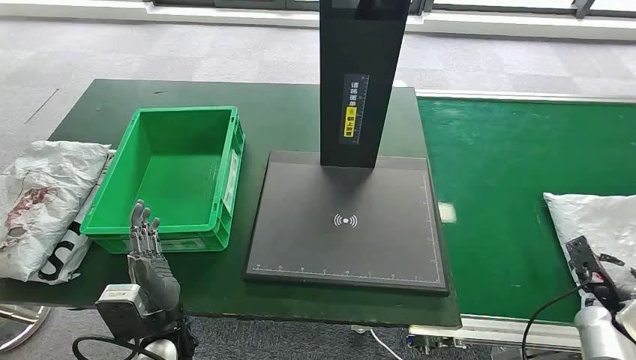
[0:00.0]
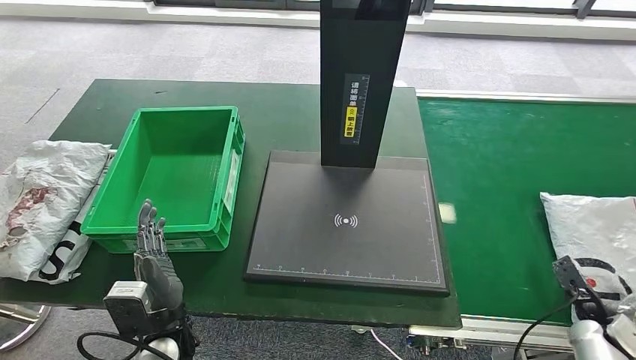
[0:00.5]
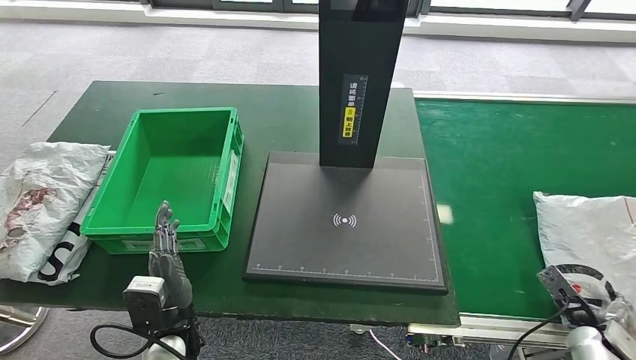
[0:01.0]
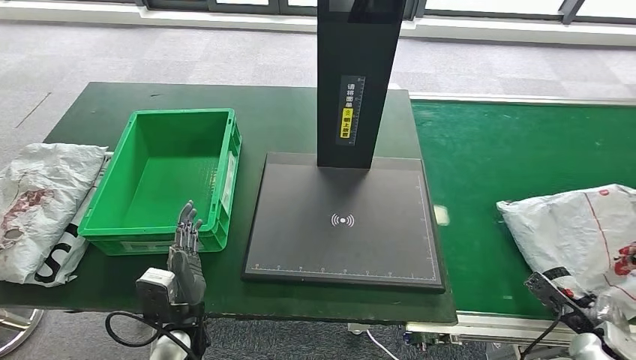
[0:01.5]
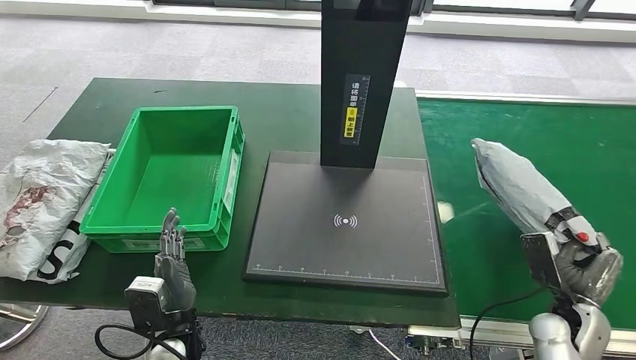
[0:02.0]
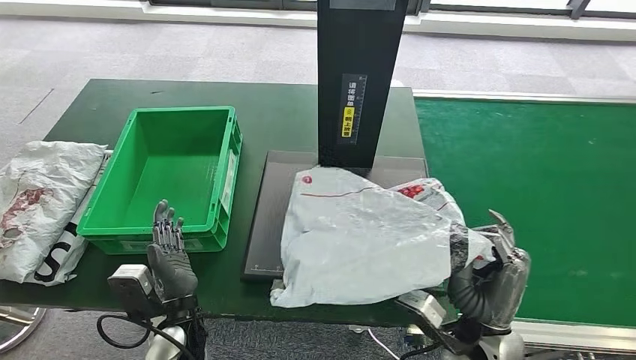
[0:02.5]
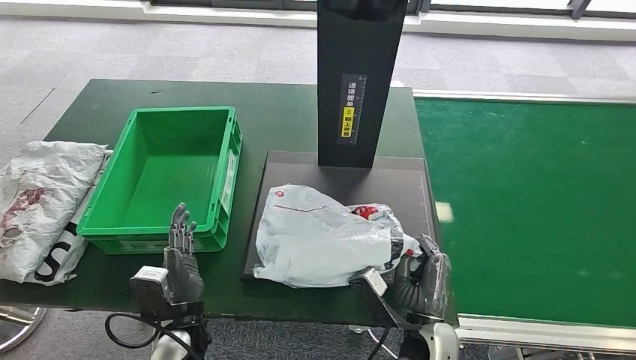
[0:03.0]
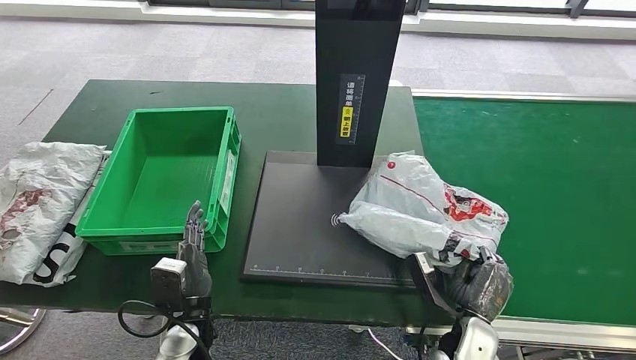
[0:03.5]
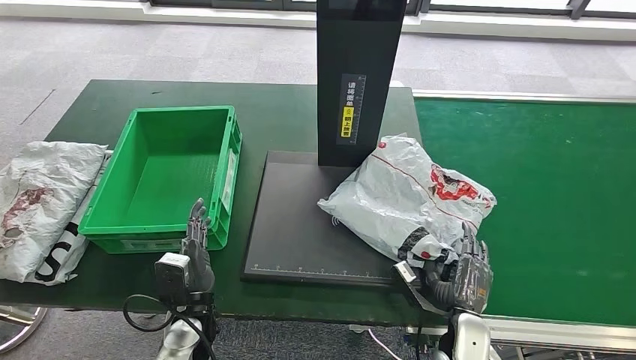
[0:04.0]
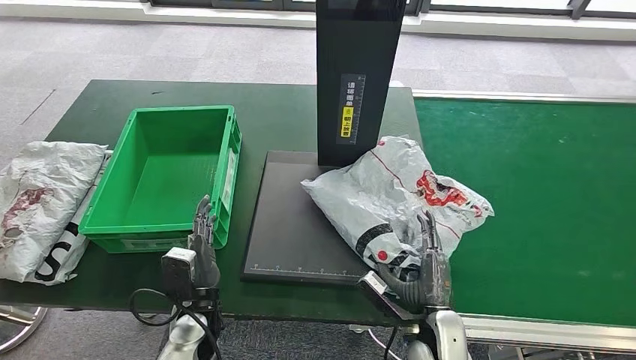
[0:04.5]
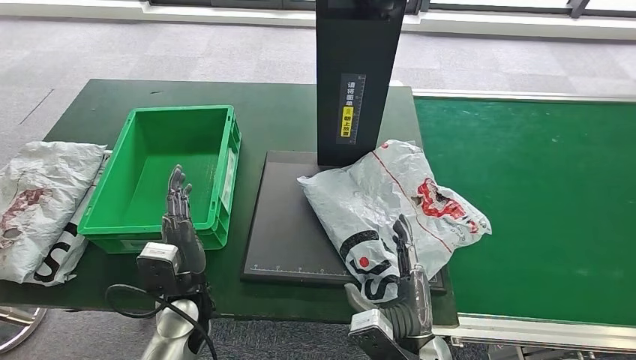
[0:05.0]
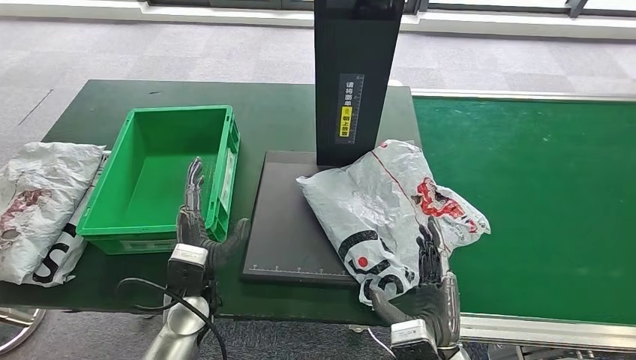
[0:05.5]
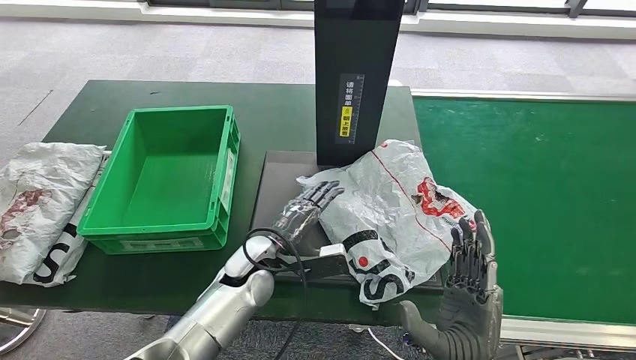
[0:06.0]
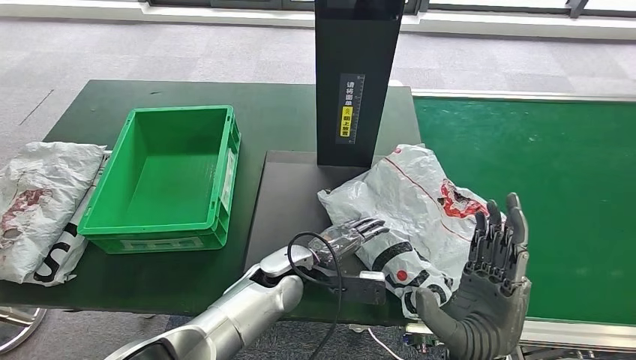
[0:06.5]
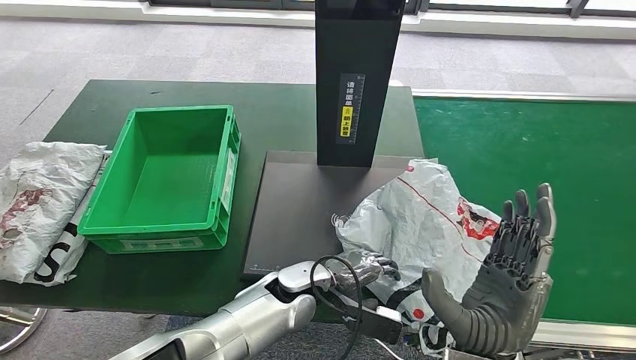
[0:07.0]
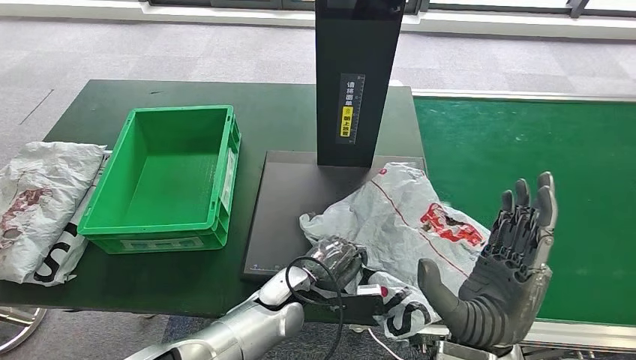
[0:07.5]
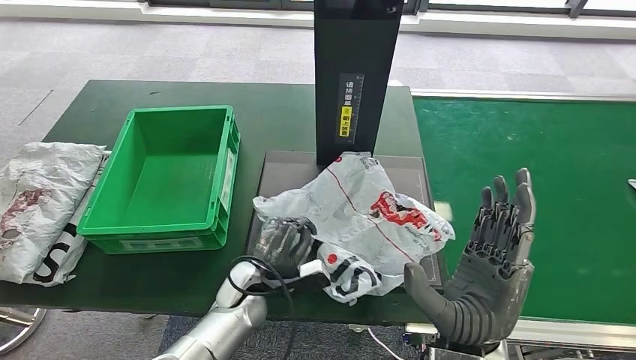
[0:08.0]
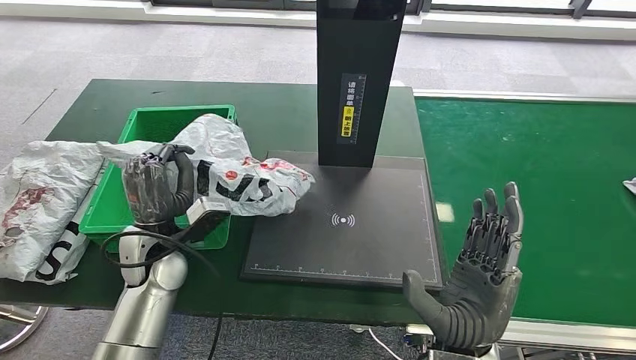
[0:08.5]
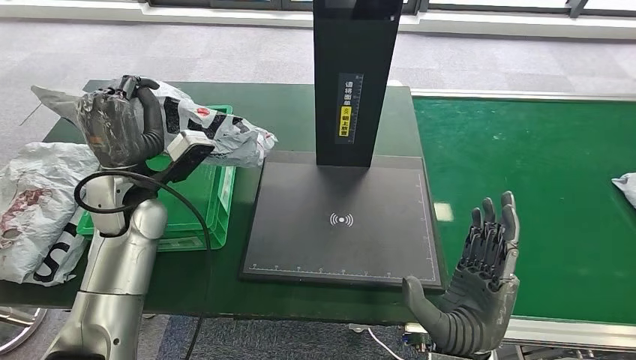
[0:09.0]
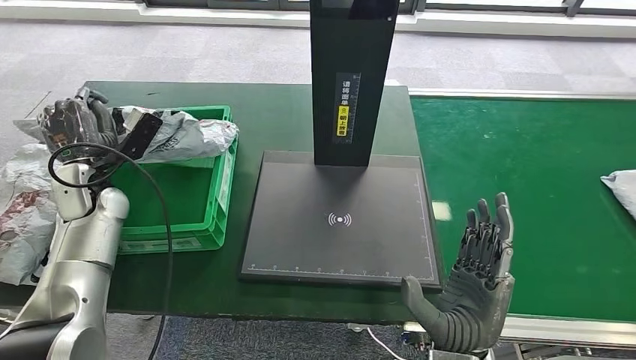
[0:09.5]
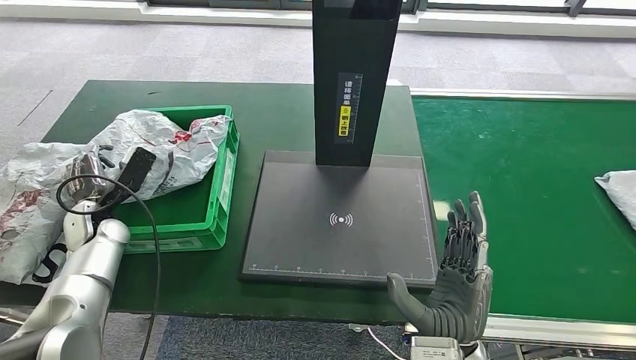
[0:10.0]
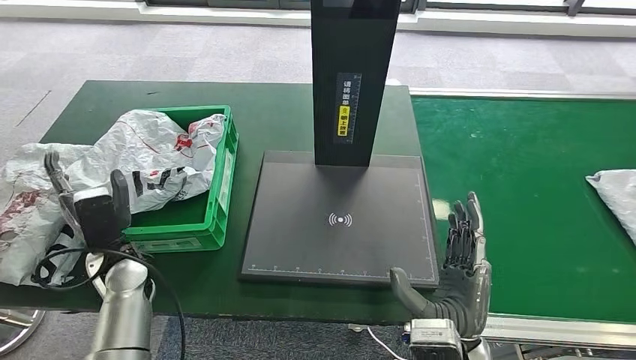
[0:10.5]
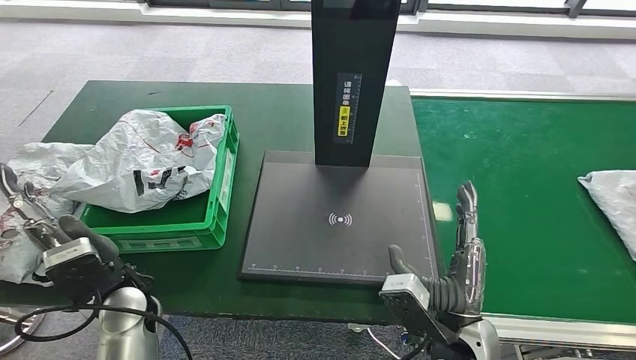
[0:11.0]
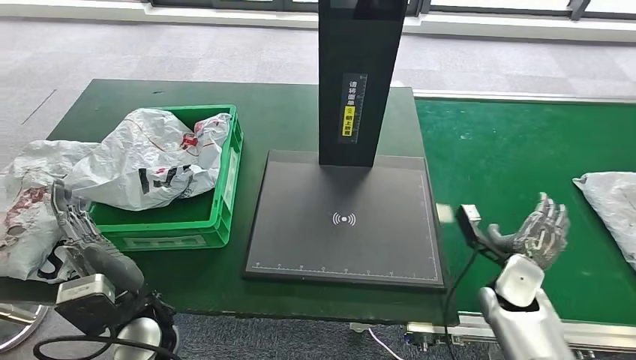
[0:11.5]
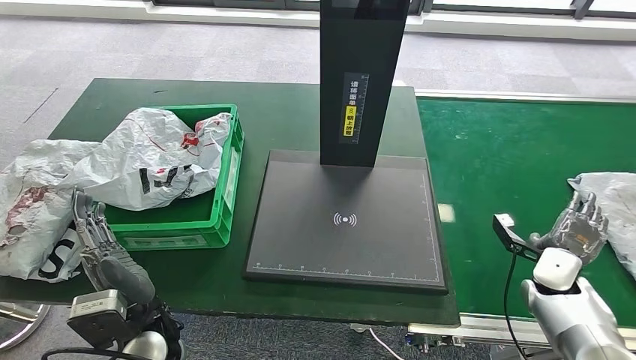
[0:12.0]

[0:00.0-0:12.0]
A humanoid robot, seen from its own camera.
Step, 0:00.0 to 0:01.5: Take the parcel off the conveyor belt.
Step, 0:02.0 to 0:05.5: Place the parcel onto the inbound machine.
Step, 0:06.0 to 0:08.5: Pick up the parcel from the inbound machine.
0:04.0 to 0:06.0: The left hand moves to the right, forward and upward, some 15 cm; the right hand shifts about 15 cm upward, to the left and backward.
0:06.0 to 0:08.0: The right hand shifts some 5 cm upward; the left hand travels downward by about 5 cm, and moves approximately 10 cm to the right and comes back.

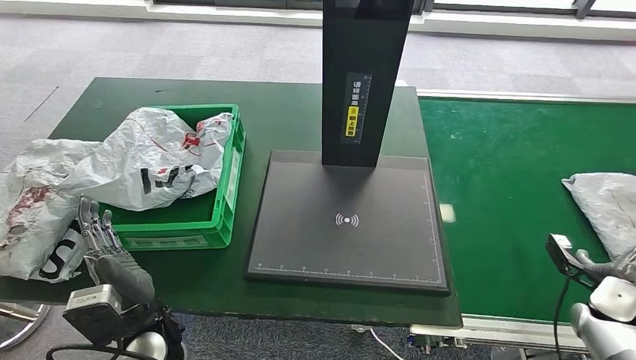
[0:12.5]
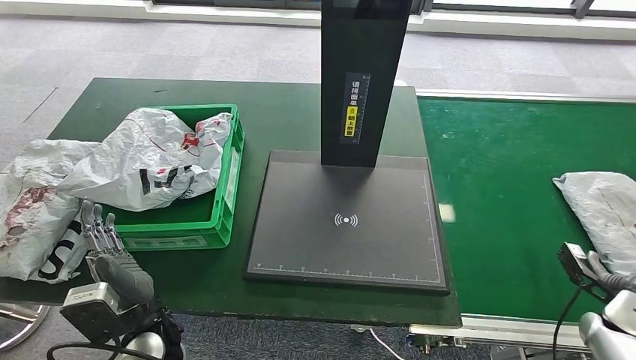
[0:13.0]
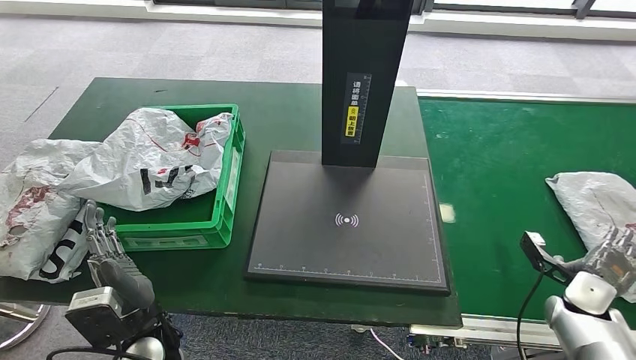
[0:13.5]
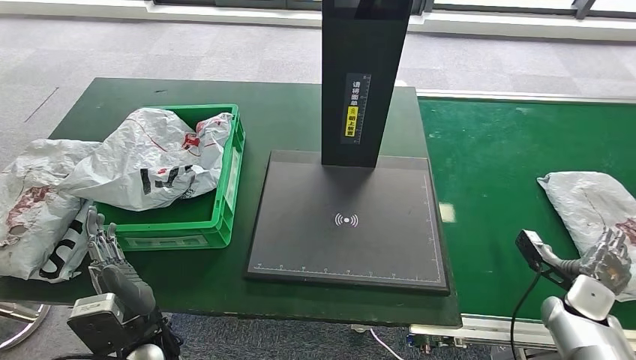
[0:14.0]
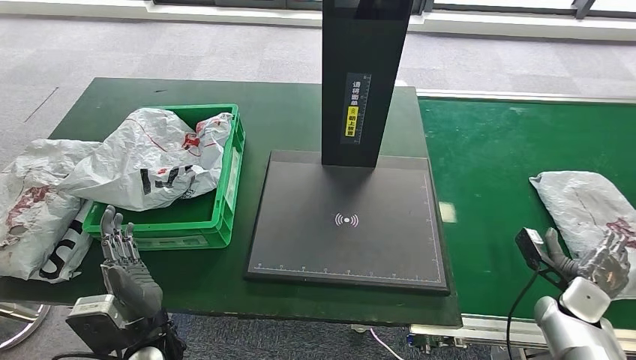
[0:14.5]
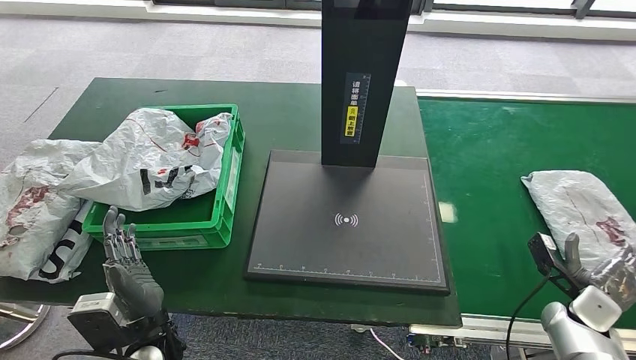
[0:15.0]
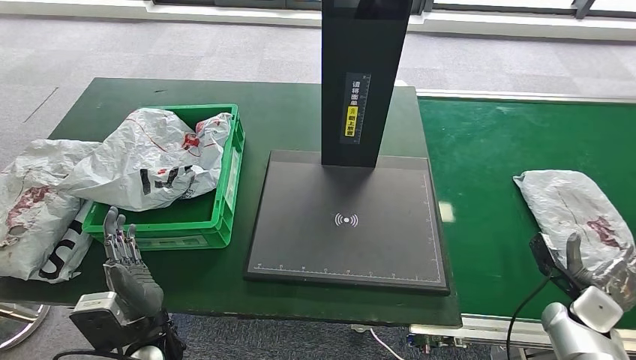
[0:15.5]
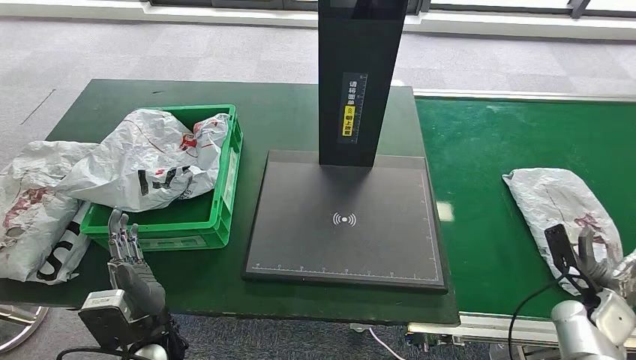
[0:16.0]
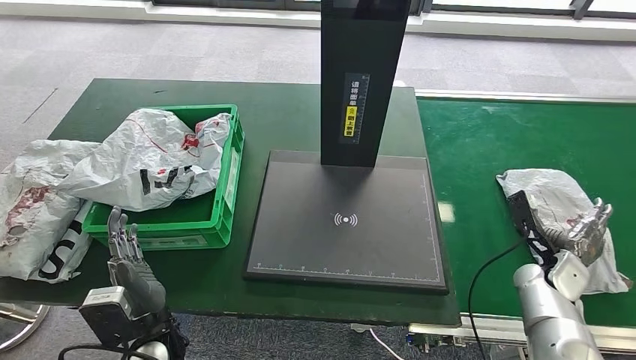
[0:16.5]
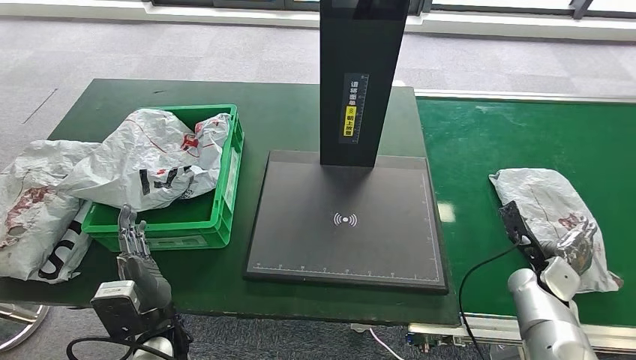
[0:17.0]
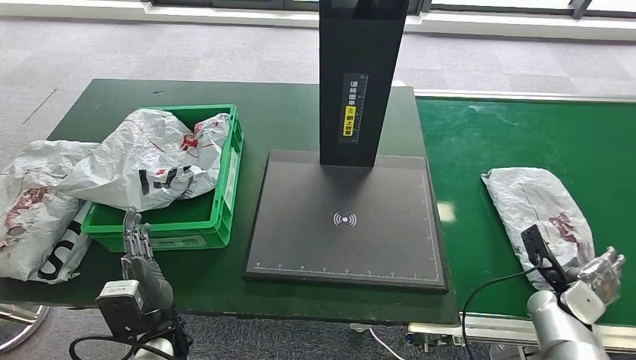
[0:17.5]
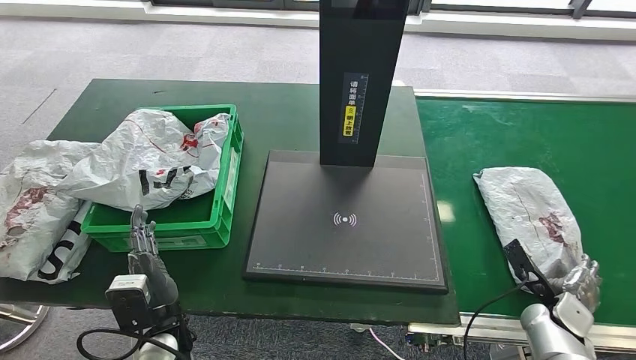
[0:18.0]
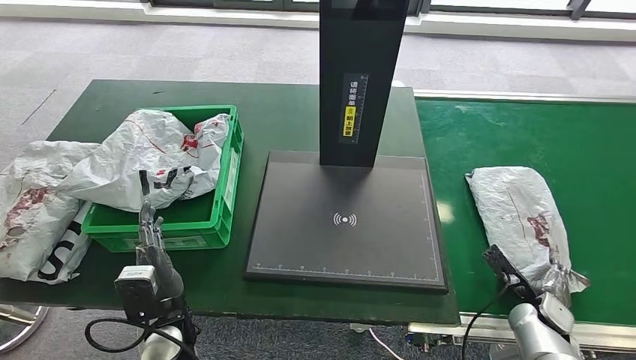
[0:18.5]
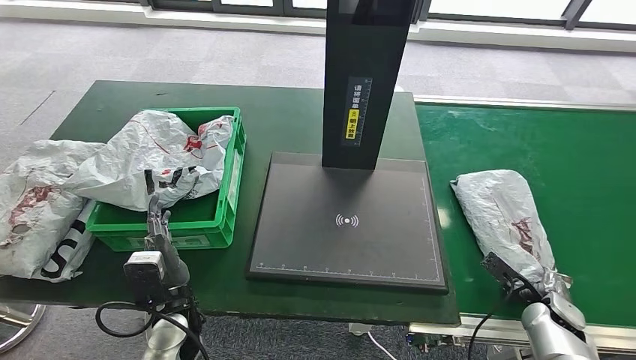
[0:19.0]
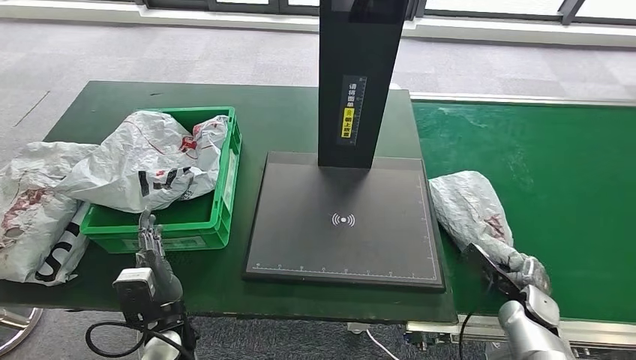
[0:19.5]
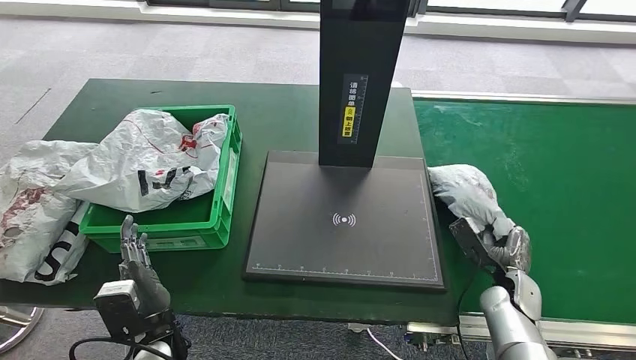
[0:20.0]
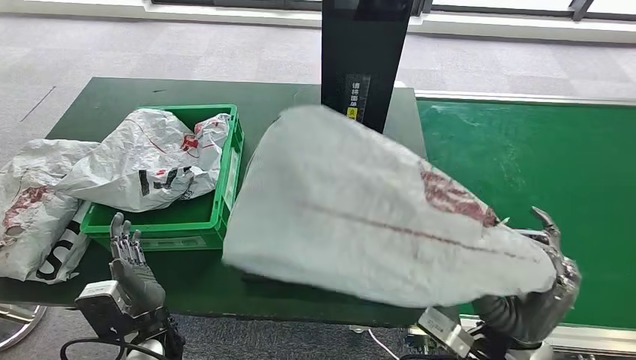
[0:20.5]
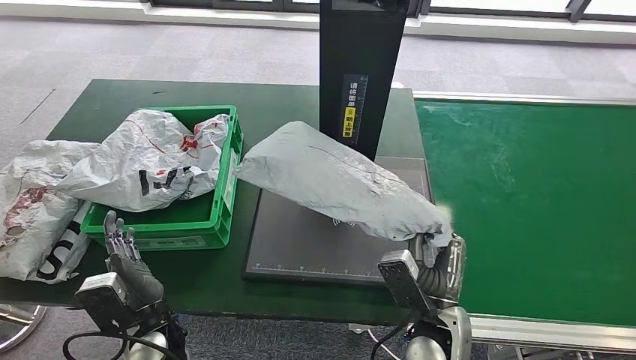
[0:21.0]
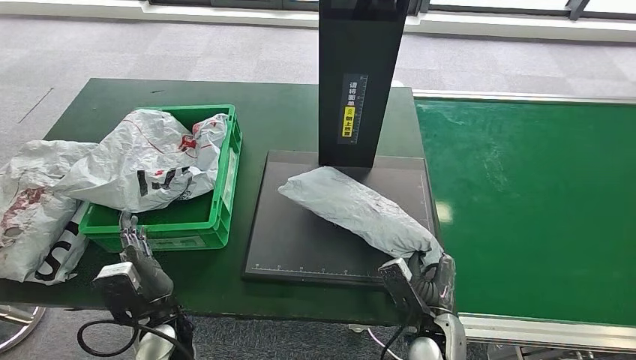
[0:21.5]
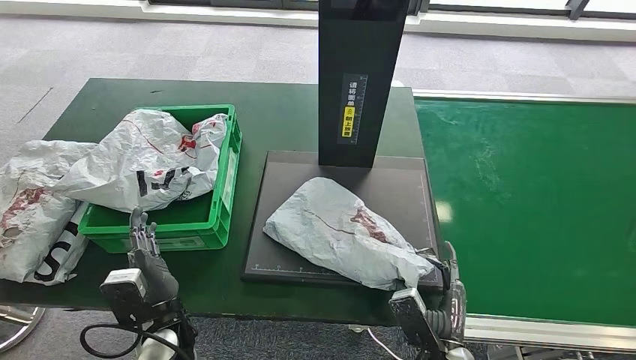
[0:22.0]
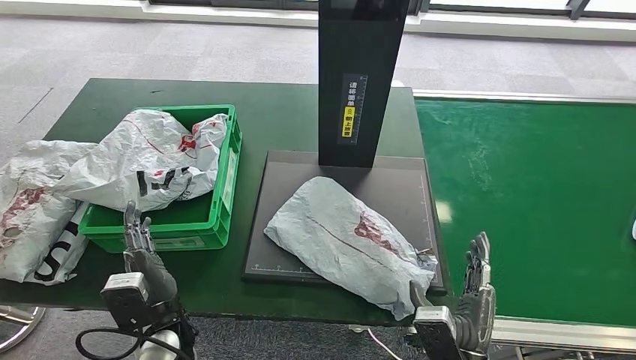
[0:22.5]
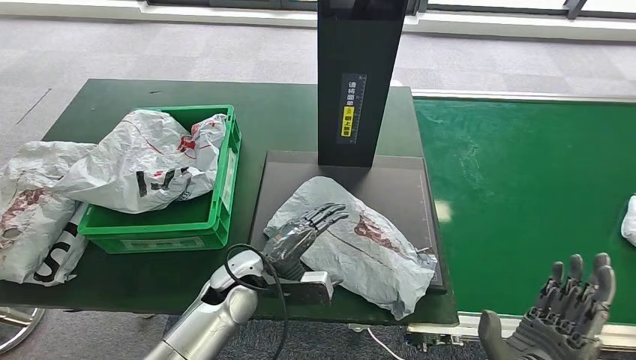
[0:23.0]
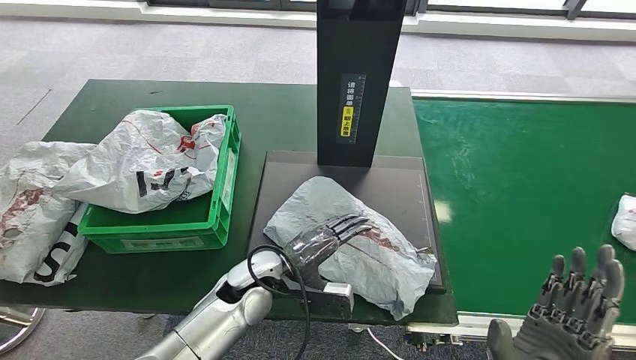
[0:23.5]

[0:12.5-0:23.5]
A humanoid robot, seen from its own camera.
Step, 0:14.5 to 0:20.0: Pick up the parcel from the conveyor belt.
0:12.5 to 0:14.5: The right hand shifts some 5 cm to the left.
0:20.0 to 0:21.5: The right hand moves to the left and backward, approximately 20 cm.
0:21.5 to 0:23.5: The left hand goes about 15 cm to the right and forward, while the right hand moves upward and backward, about 20 cm.
